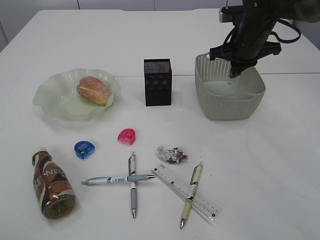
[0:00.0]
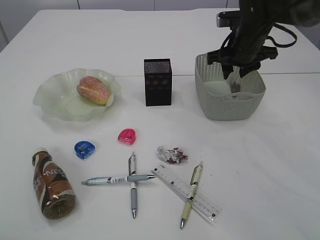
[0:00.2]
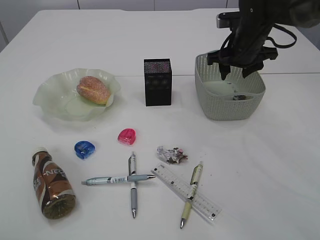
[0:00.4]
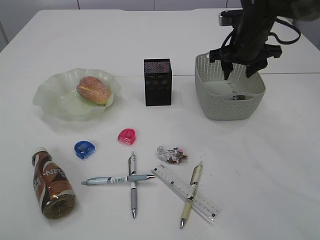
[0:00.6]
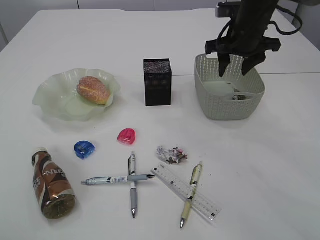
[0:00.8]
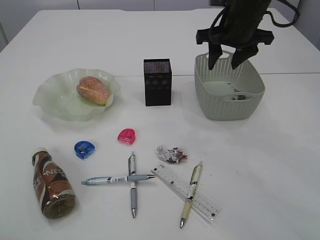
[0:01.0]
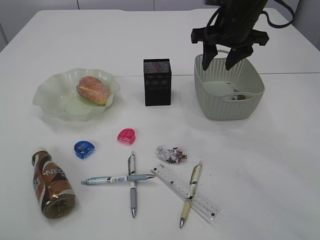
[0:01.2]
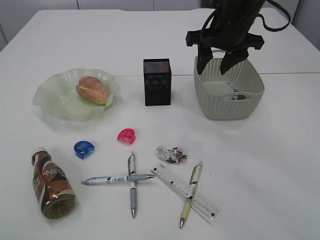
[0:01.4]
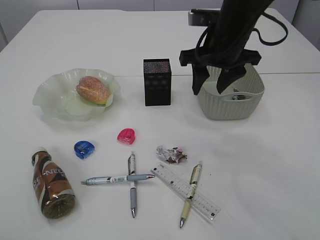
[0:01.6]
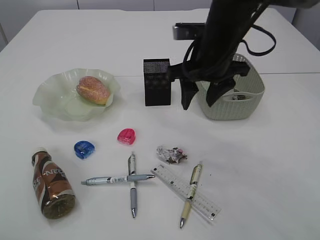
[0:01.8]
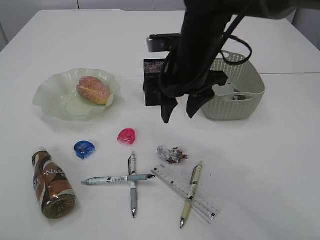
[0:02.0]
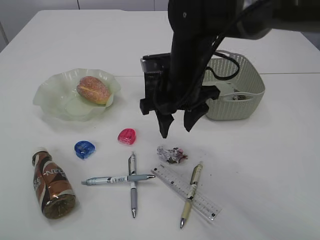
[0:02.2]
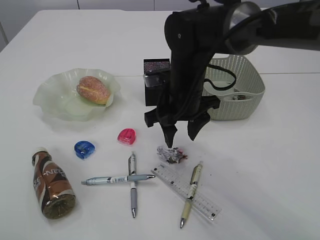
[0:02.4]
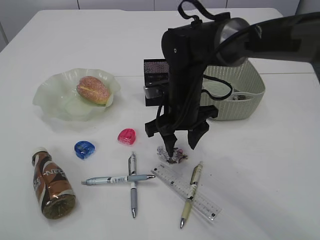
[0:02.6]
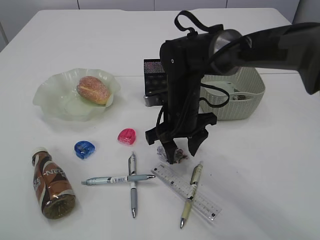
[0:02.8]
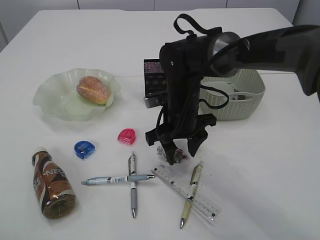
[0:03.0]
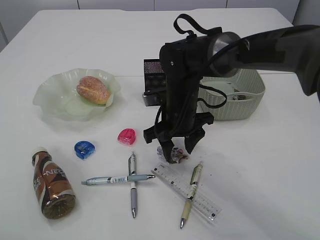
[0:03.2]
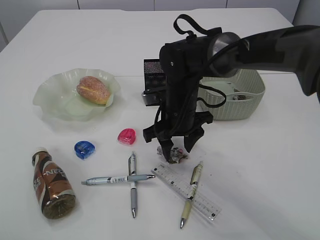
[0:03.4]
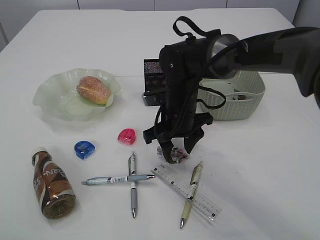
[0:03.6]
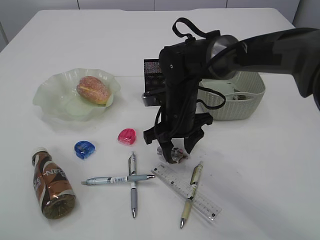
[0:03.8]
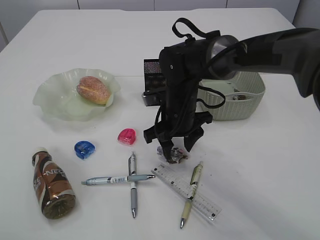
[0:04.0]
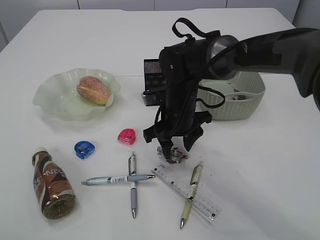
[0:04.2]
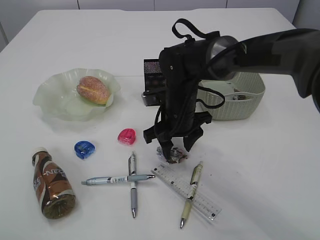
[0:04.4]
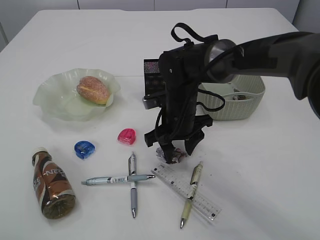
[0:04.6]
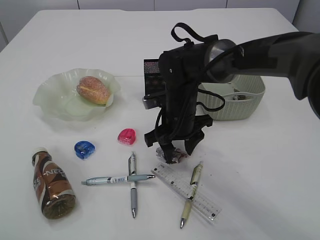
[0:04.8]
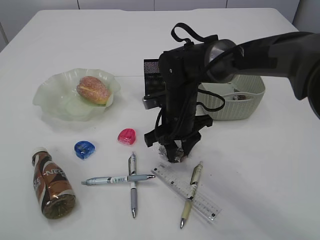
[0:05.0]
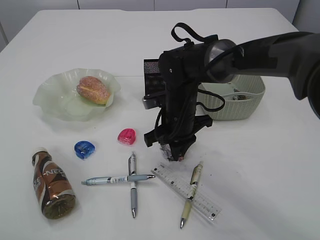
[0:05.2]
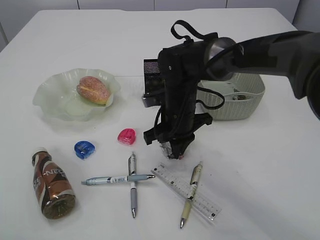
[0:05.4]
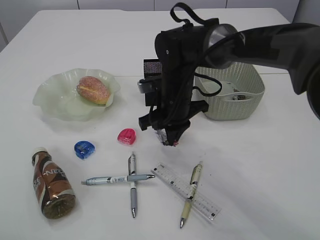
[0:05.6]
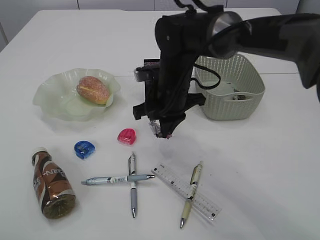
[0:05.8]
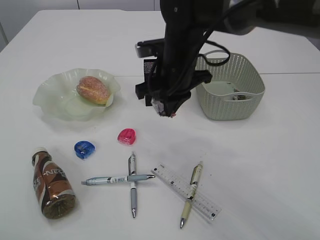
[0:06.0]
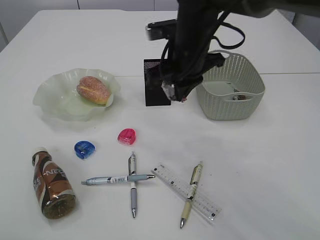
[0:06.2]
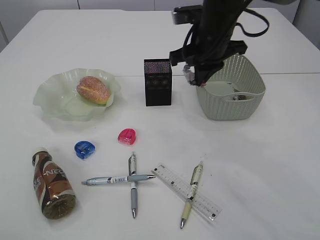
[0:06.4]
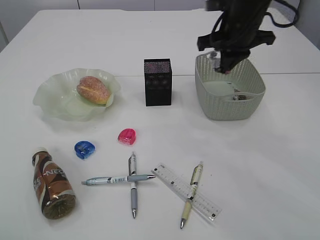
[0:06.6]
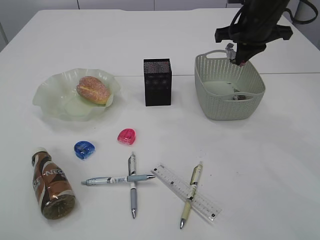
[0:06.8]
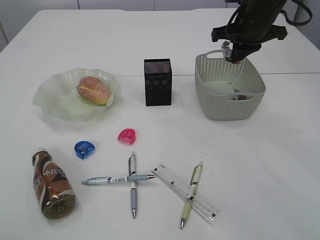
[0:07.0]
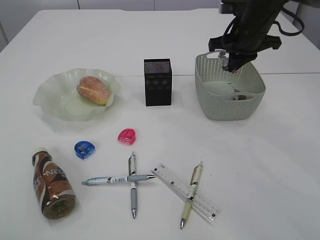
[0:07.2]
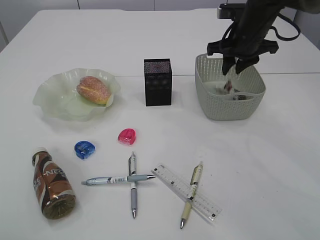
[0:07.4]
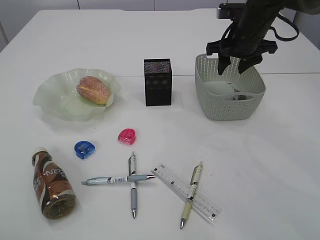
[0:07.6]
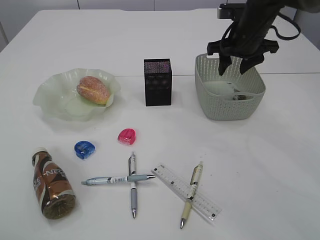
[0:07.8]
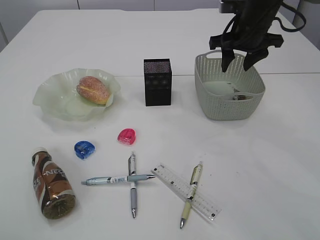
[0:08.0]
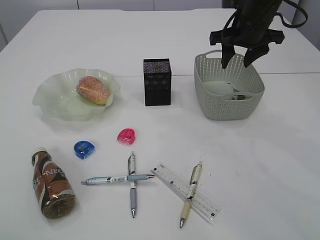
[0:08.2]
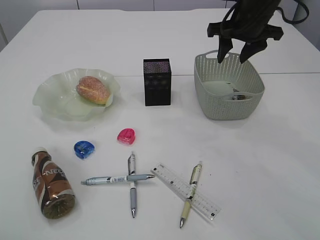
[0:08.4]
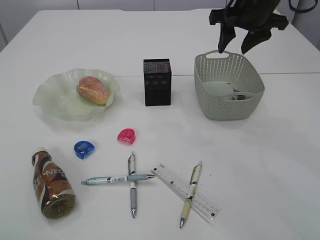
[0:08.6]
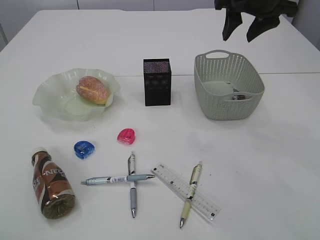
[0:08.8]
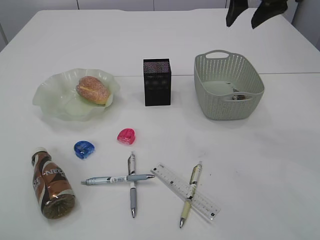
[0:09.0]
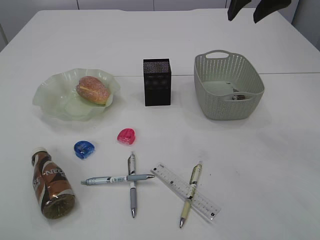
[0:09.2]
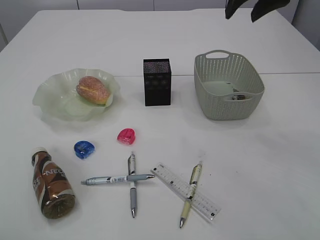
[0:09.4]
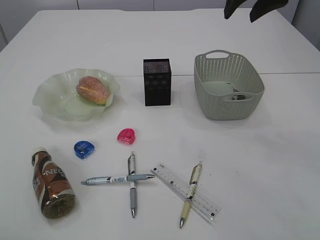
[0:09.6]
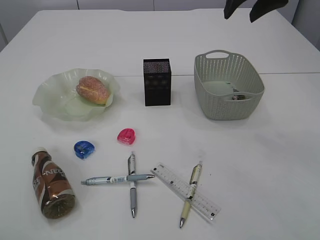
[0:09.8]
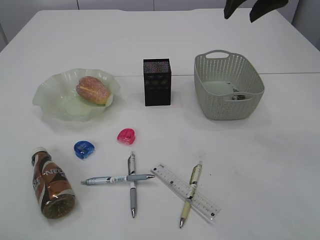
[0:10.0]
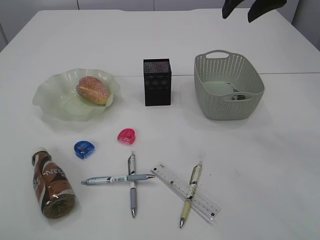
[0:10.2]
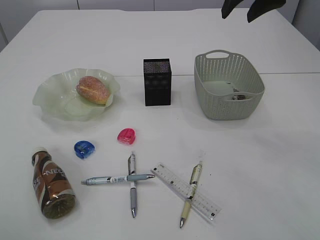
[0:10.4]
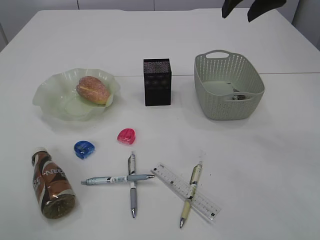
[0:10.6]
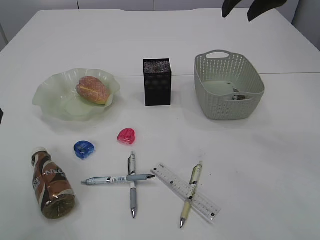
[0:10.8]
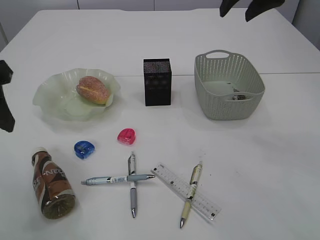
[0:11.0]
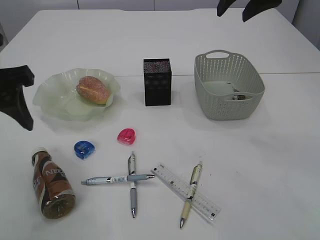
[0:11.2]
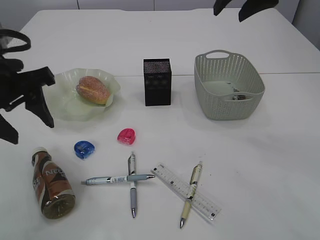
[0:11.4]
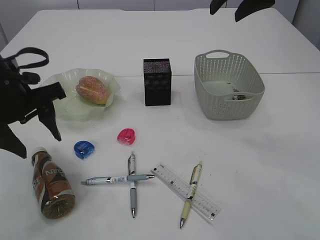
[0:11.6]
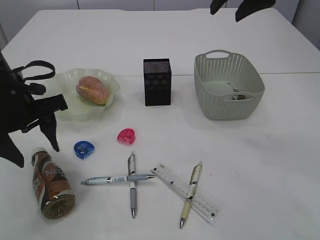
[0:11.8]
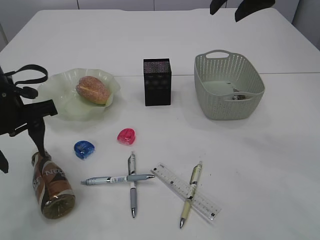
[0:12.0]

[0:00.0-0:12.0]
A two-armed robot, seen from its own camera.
Step, 0:01.0 to 0:06.0: Pick up the waste paper.
Step, 0:06.2 to 0:08.0: Place the waste paper in the basket.
0:00.0 to 0:01.6: The right gripper moves to the left and backward, approximately 10 cm, and opens its fingers.
0:01.6 to 0:03.0: The right gripper goes about 15 cm downward and to the left.
0:03.0 to 0:04.4: There are only small adjustments of the grippers.
0:04.4 to 0:06.0: The right gripper heads upward, covering roughly 10 cm, and closes up.
0:06.0 to 0:07.6: The right gripper is displaced to the right and forward by about 15 cm, and opens up.
0:07.6 to 0:09.0: The right gripper travels upward and backward by about 15 cm.
0:09.0 to 0:10.4: The grippers move only a little.
0:10.4 to 0:12.0: The left gripper moves downward and forward, about 25 cm.

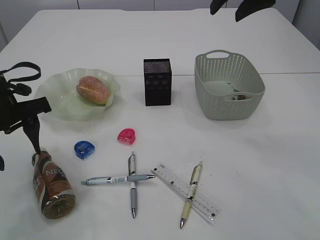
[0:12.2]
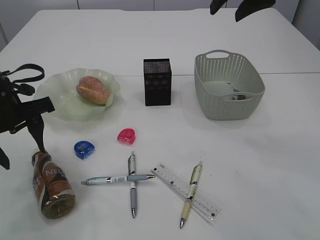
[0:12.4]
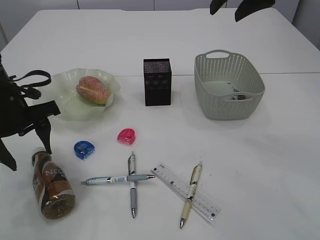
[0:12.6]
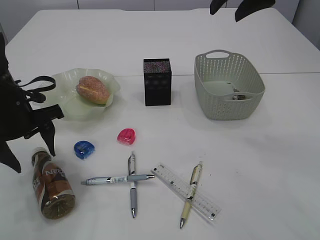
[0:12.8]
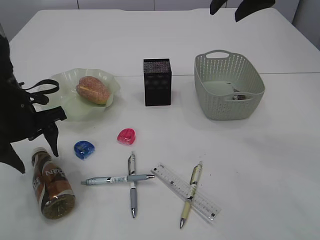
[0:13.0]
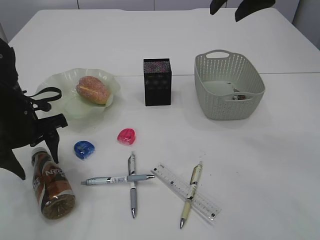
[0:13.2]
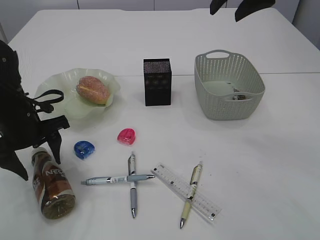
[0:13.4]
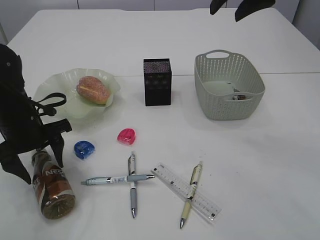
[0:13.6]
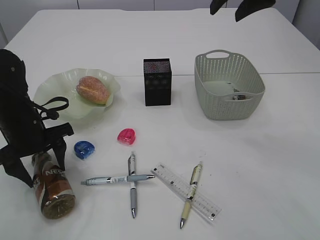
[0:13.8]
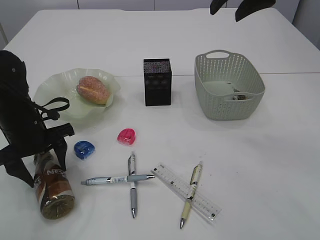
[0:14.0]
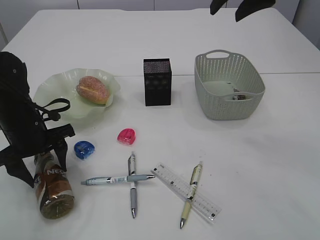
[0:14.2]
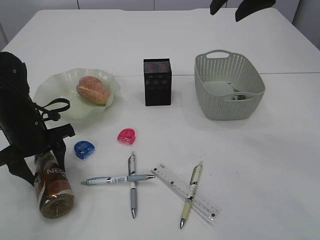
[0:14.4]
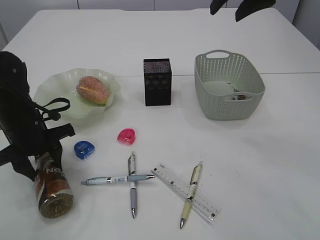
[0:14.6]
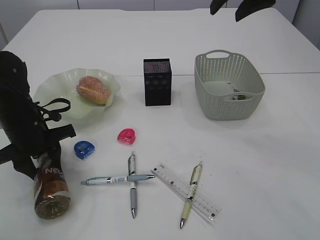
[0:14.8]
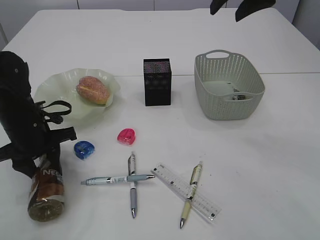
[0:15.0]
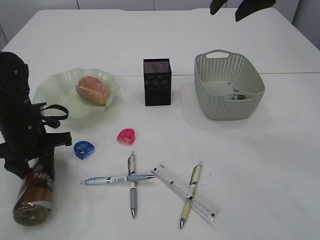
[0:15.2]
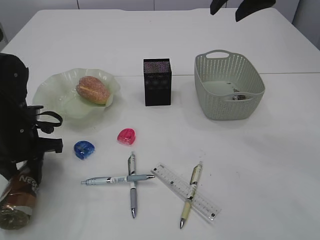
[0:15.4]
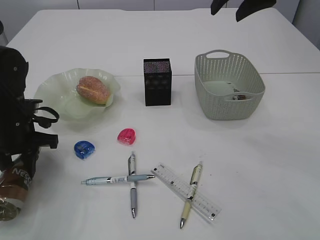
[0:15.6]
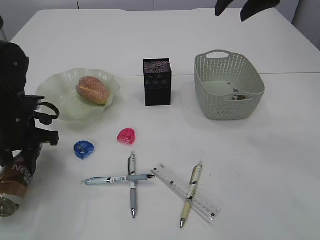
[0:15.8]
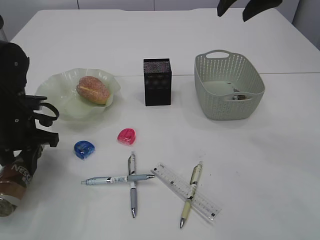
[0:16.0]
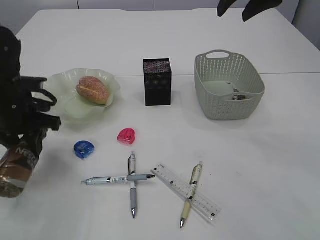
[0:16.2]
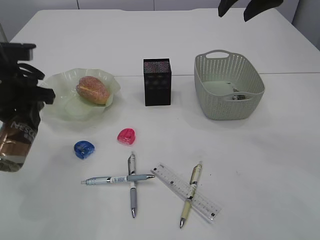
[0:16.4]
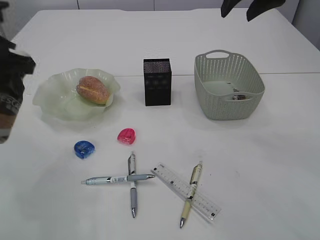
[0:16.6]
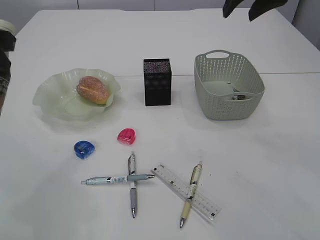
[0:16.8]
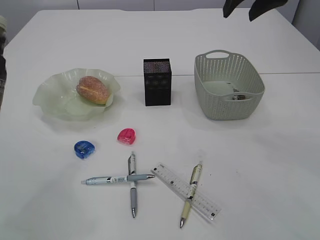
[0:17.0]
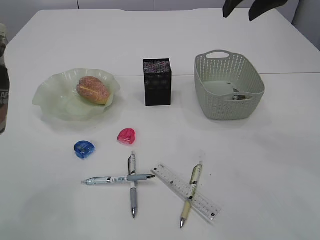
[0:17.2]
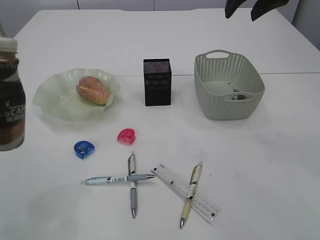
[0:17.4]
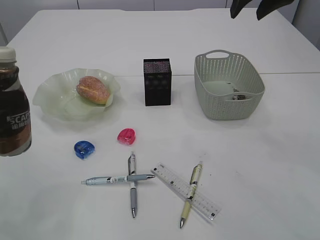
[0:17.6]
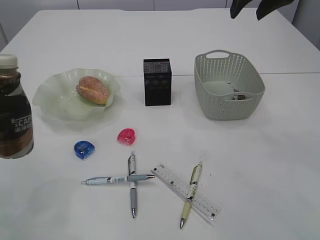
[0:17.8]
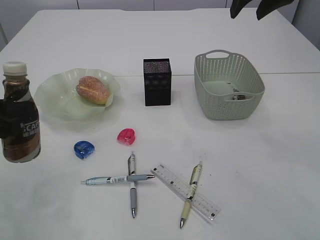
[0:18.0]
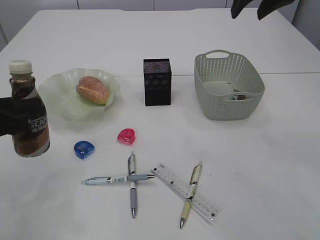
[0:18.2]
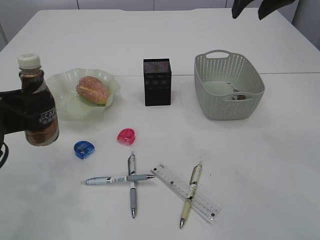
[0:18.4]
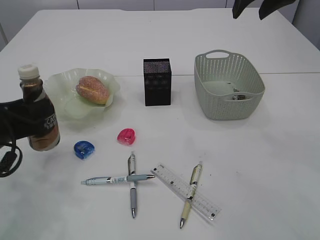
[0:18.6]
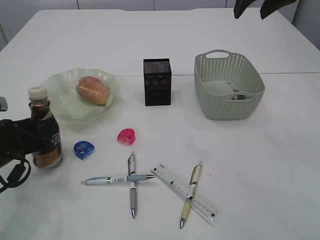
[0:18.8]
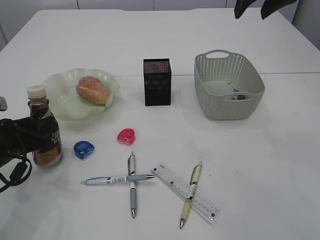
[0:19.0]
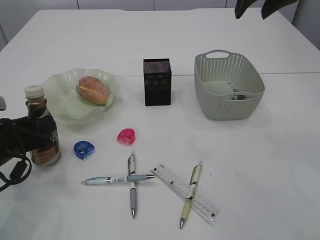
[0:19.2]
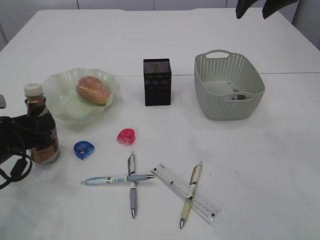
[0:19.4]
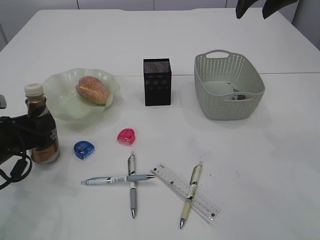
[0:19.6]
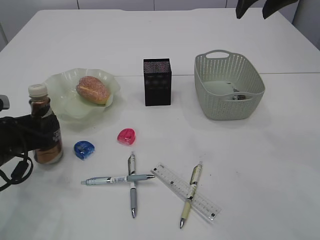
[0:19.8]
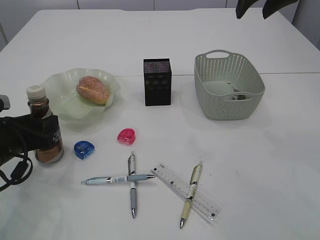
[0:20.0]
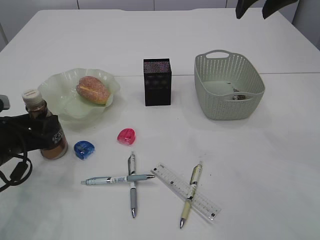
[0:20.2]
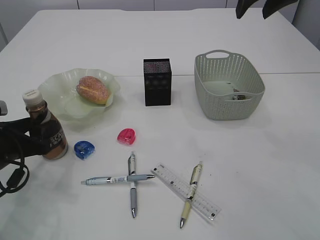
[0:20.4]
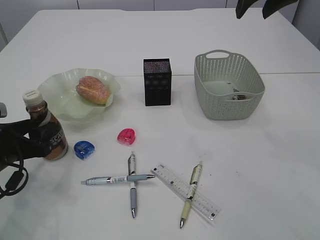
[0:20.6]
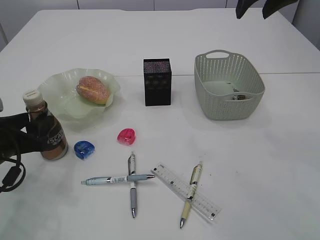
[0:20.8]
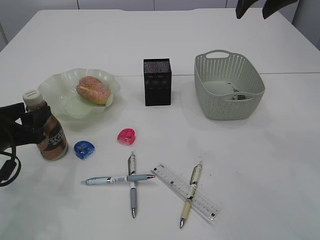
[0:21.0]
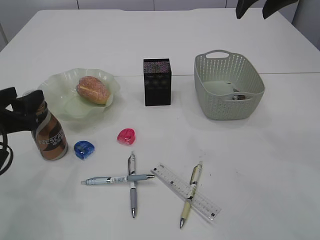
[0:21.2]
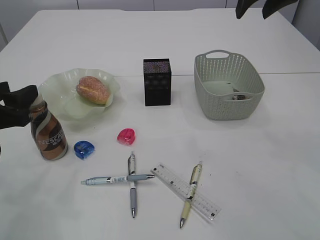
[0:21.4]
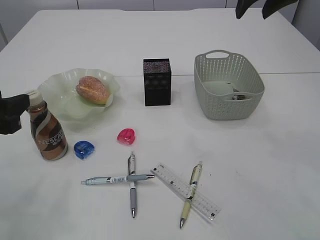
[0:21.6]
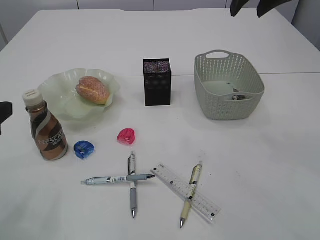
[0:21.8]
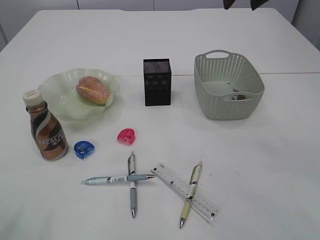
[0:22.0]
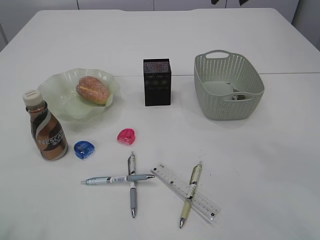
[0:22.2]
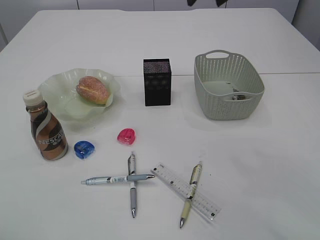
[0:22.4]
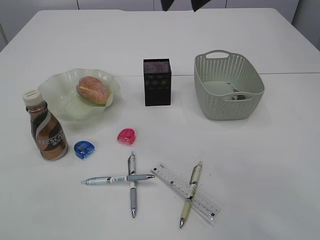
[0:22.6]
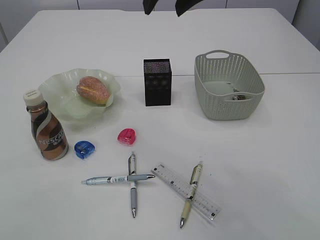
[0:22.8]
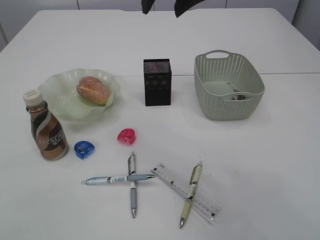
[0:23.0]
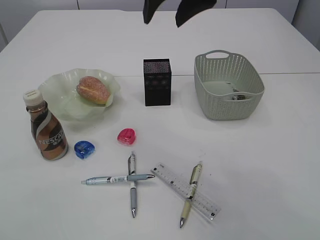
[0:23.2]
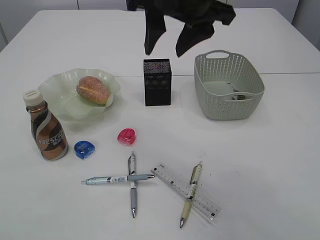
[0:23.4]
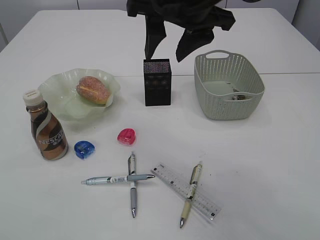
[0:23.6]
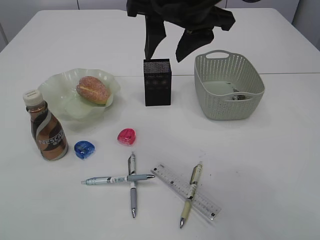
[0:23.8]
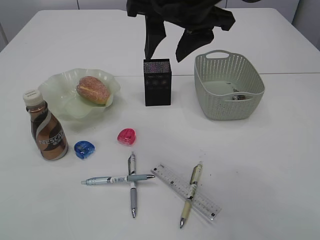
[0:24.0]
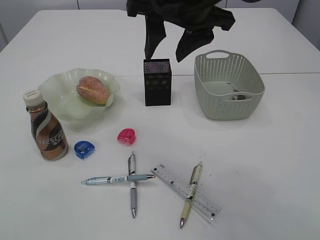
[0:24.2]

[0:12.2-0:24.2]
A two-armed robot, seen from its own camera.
Step, 0:12.2 to 0:16.2: Pick up the bottle with the left arm.
Step, 0:16.4 to 0:21.6: Place the bottle.
0:12.2 to 0:13.8: The left gripper shifts roughly 10 cm downward.
0:13.8 to 0:15.2: The left gripper closes up.
0:15.2 to 0:16.6: The left gripper shifts about 15 cm upward.
0:16.6 to 0:18.2: The left gripper goes roughly 10 cm downward and backward.
0:18.2 to 0:19.8: The left gripper is displaced downward by approximately 10 cm.
0:19.8 to 0:21.2: The left gripper moves some 5 cm.
0:21.2 to 0:22.6: The right gripper shifts approximately 15 cm to the left and backward; the left gripper goes some 20 cm upward and backward.
0:22.6 to 0:24.2: The right gripper moves about 5 cm.
